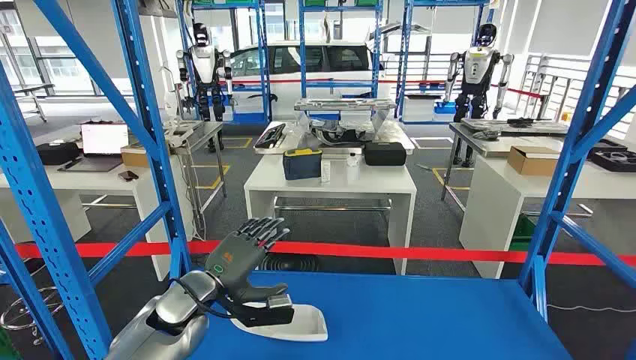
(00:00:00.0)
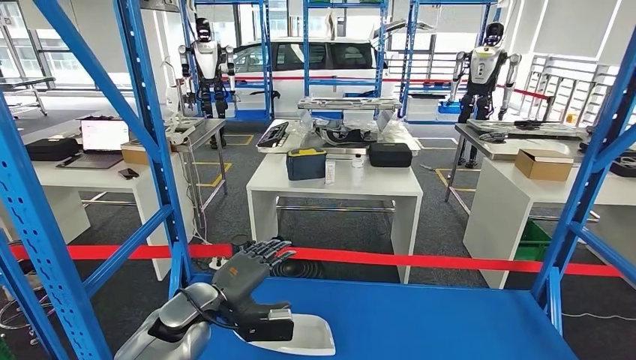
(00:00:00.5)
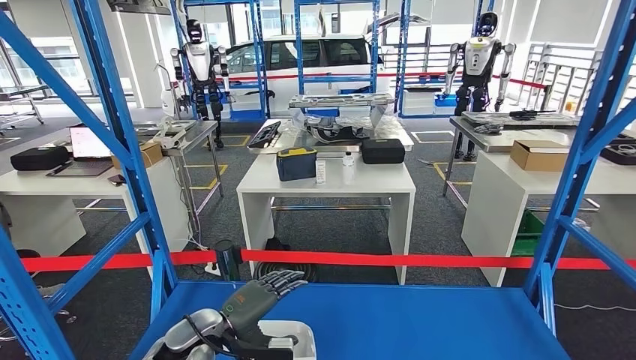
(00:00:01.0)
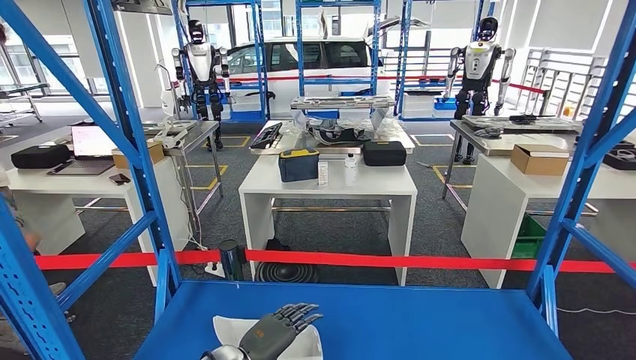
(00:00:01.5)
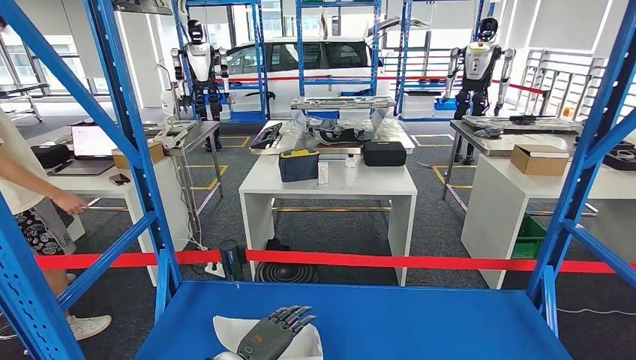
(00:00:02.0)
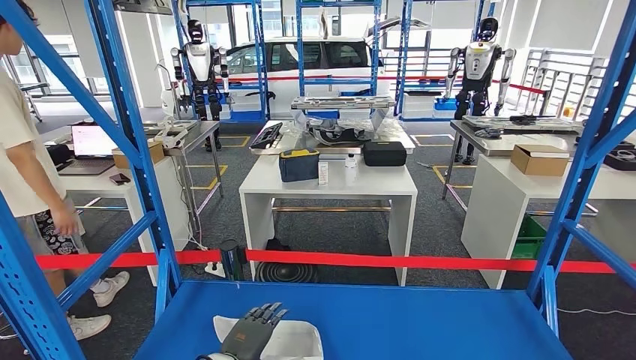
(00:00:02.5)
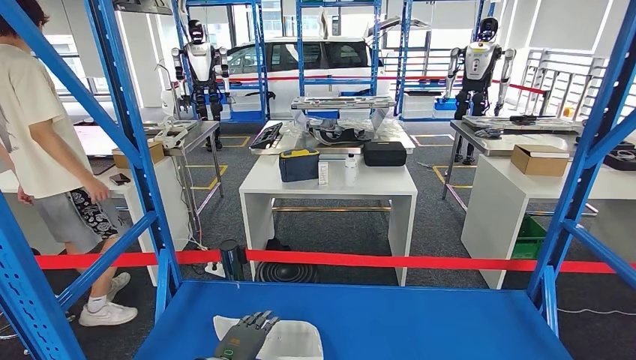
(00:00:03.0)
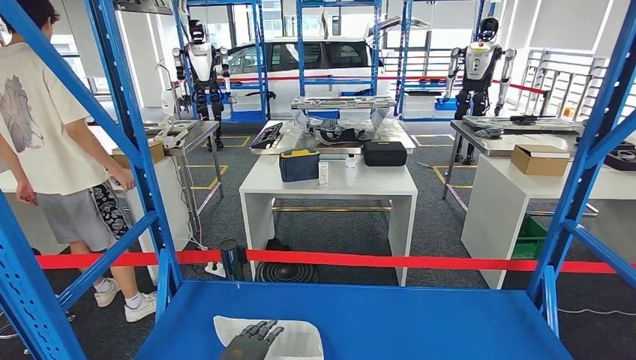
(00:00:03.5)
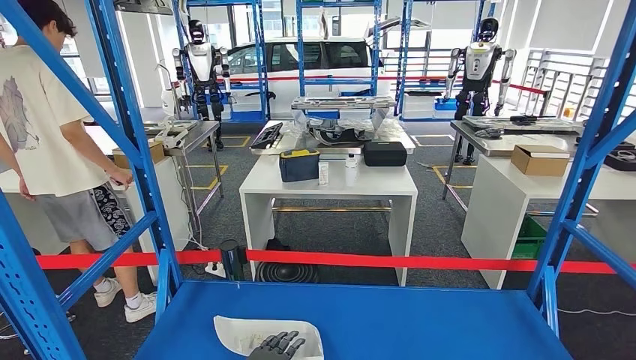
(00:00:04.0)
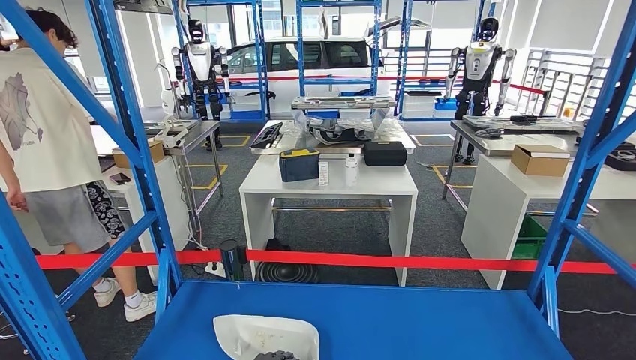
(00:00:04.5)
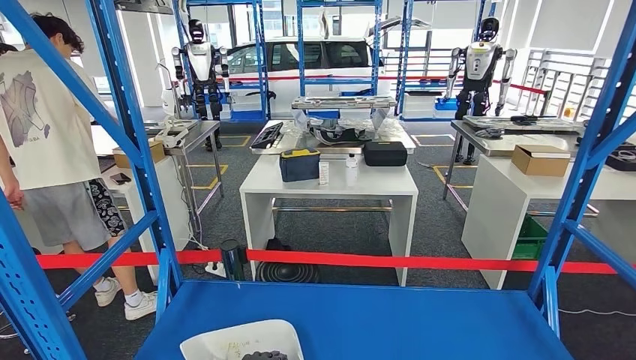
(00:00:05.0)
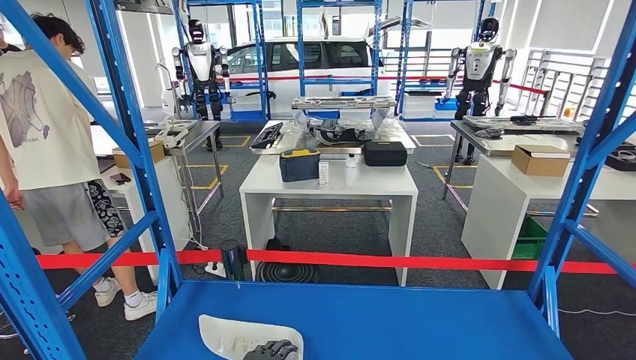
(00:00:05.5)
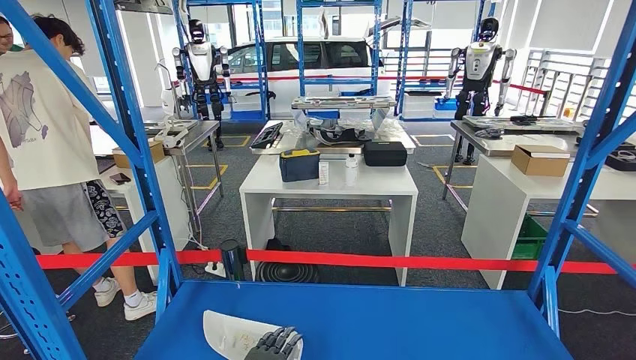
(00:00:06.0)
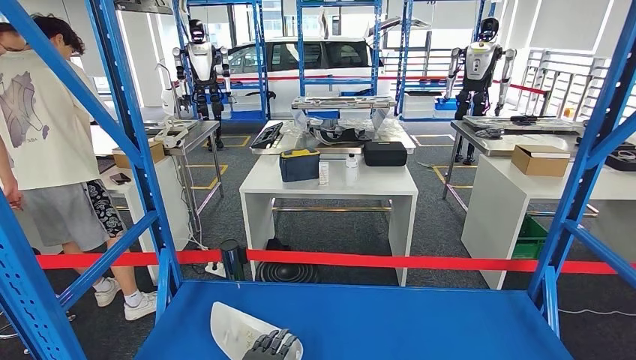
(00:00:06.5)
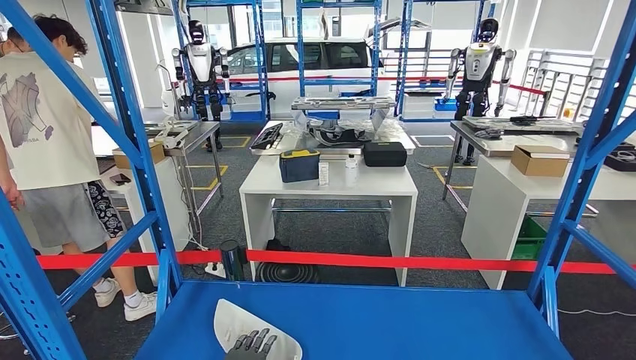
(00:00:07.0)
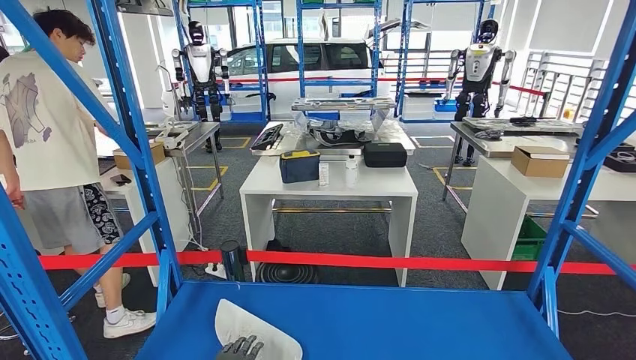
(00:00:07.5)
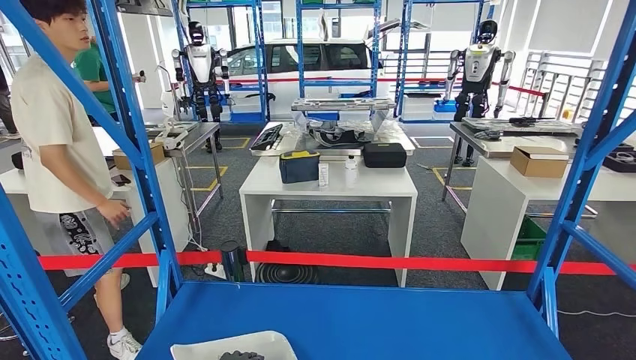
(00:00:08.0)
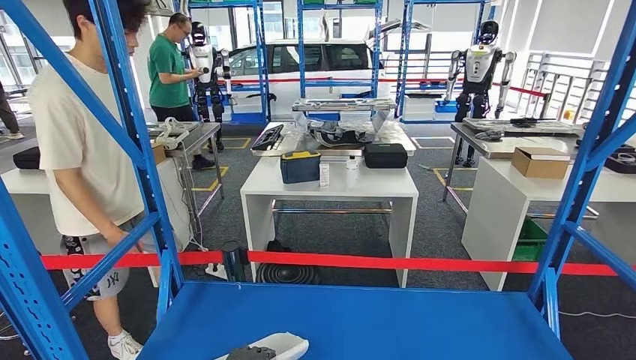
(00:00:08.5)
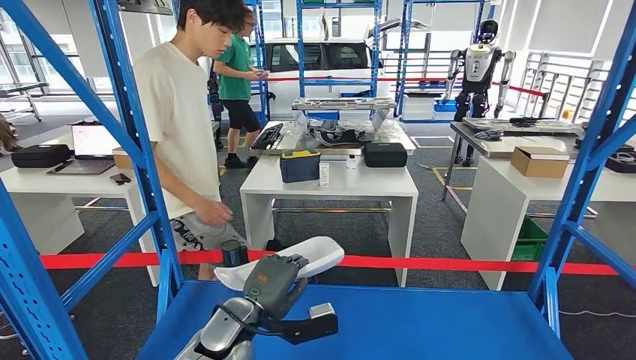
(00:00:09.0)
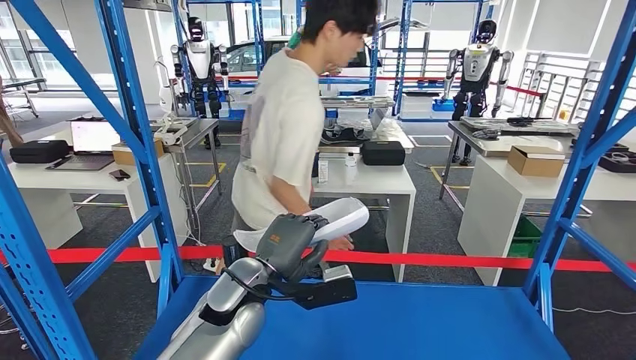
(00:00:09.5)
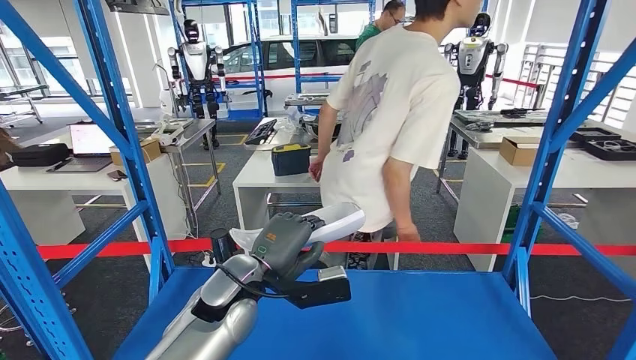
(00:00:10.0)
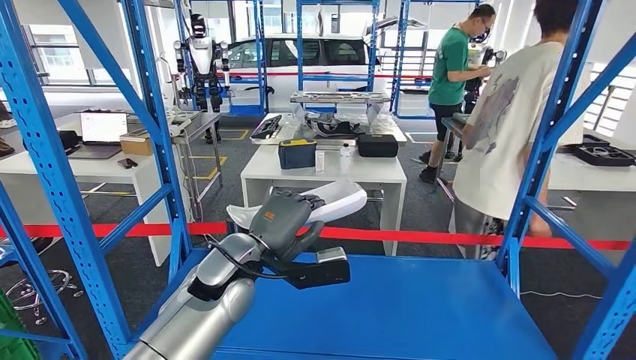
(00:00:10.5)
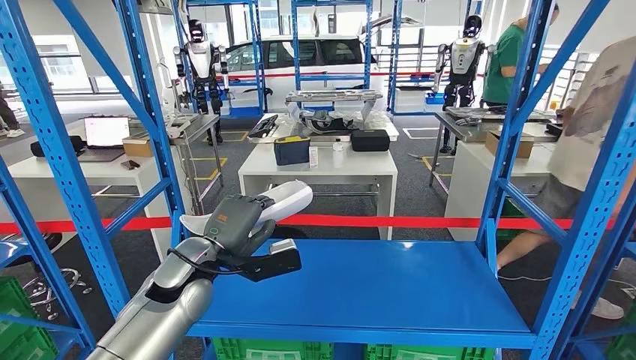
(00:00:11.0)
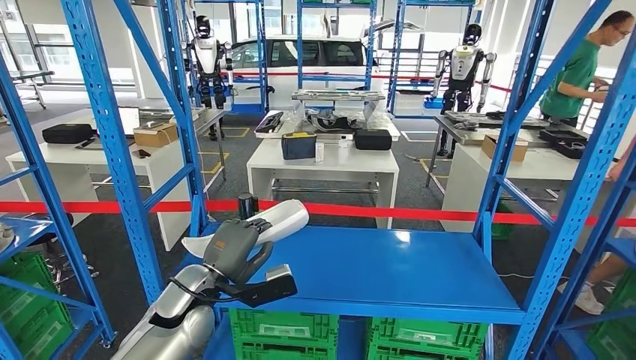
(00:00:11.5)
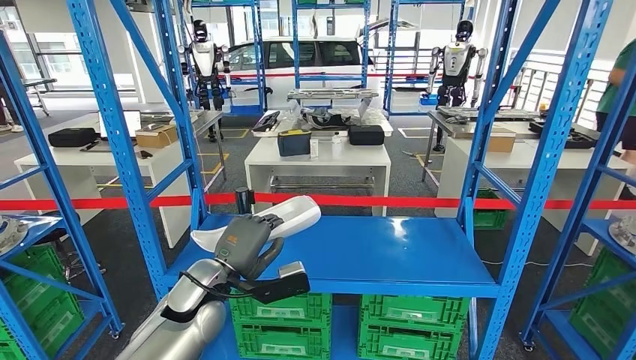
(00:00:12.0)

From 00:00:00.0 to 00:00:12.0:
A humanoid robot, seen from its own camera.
Step, from 00:00:00.0 to 00:00:11.0: Pick up the small parts from the shelf.
From 00:00:02.0 to 00:00:04.0: The left hand ends up about 5 cm from where it was.
From 00:00:04.0 to 00:00:06.0: The hands make only small movements.

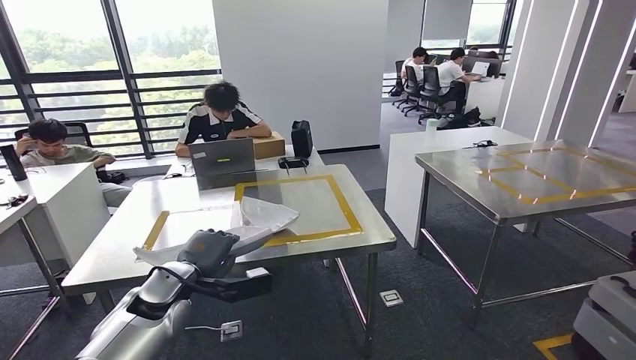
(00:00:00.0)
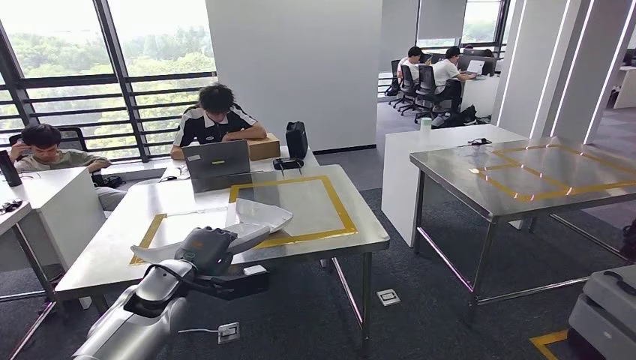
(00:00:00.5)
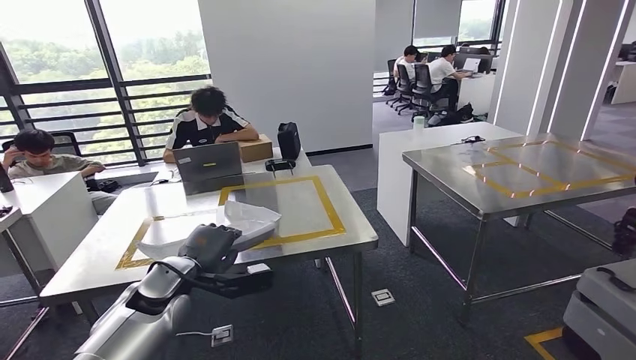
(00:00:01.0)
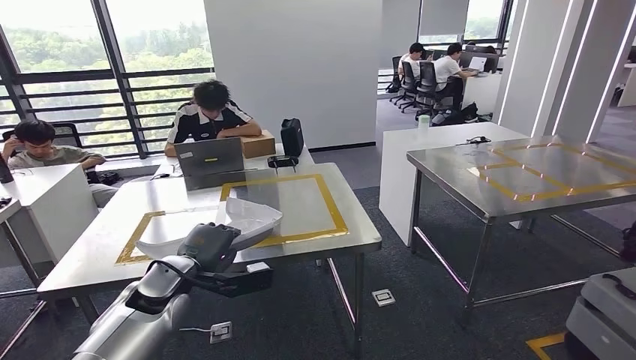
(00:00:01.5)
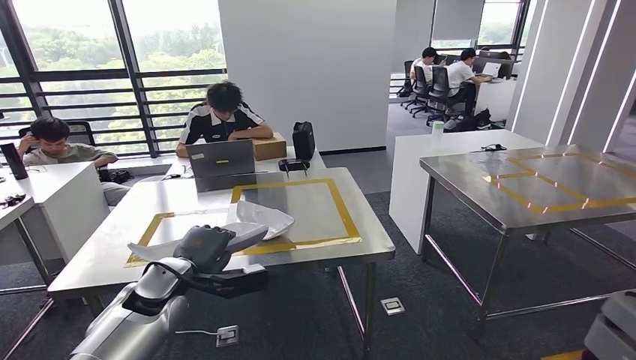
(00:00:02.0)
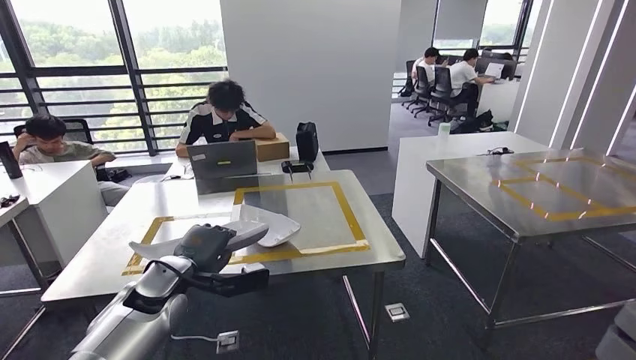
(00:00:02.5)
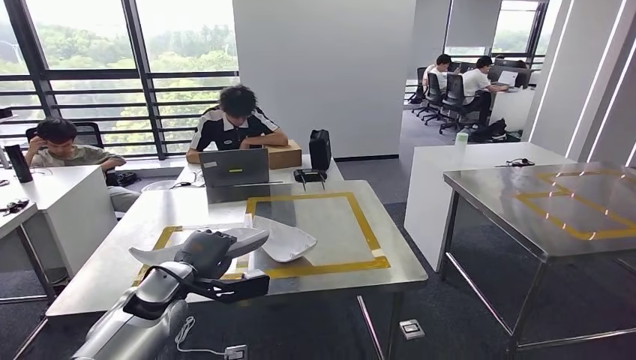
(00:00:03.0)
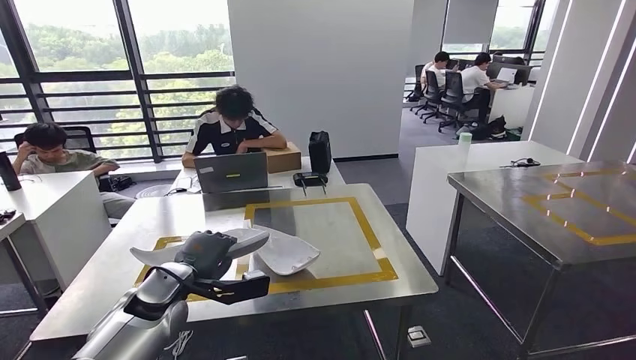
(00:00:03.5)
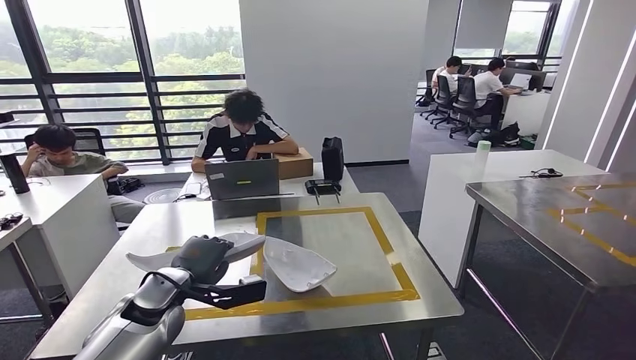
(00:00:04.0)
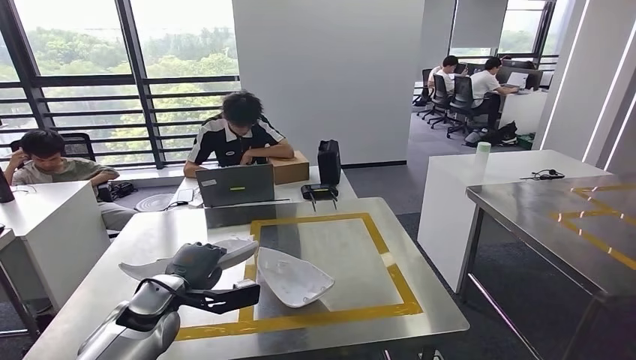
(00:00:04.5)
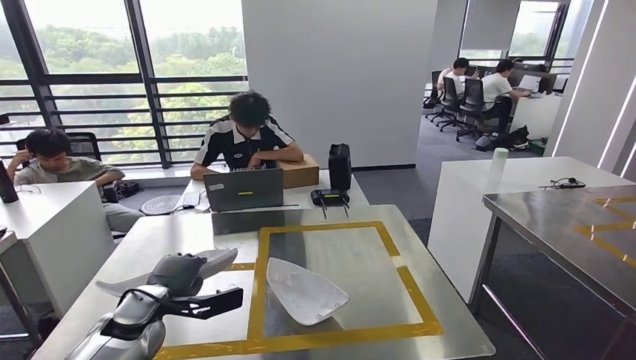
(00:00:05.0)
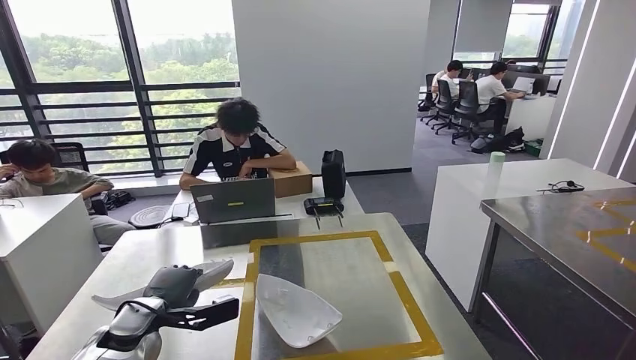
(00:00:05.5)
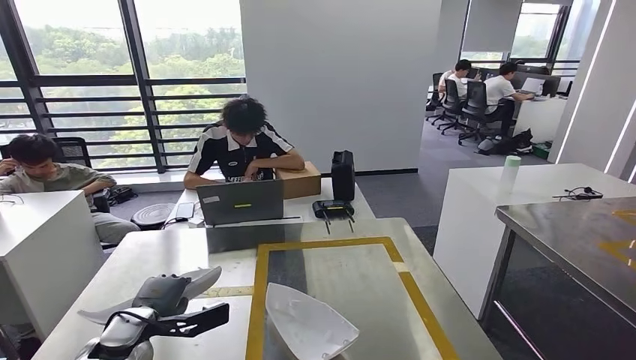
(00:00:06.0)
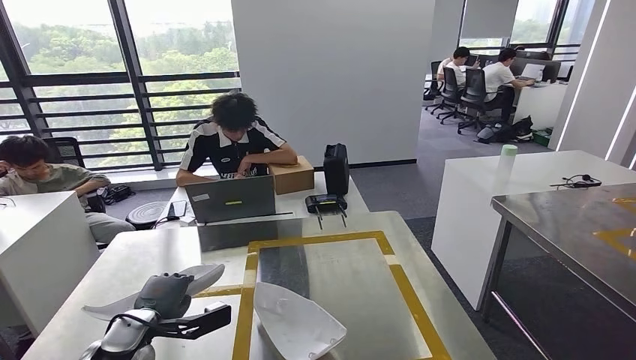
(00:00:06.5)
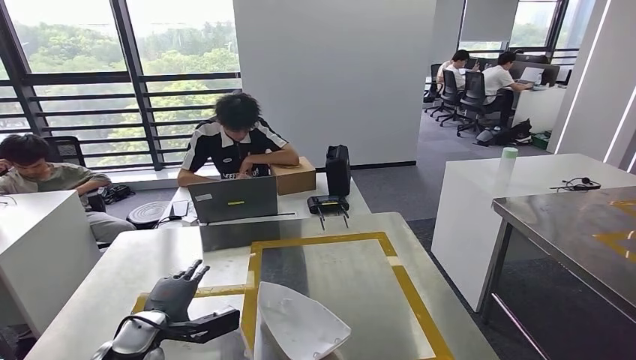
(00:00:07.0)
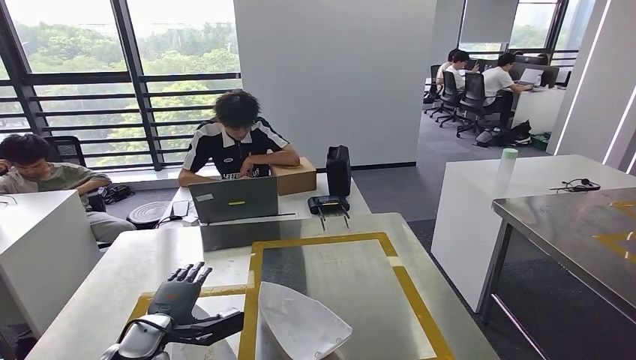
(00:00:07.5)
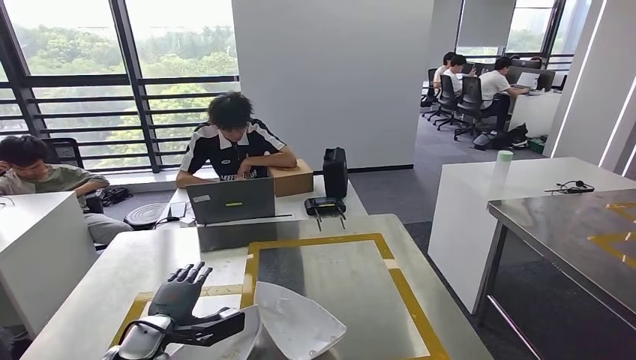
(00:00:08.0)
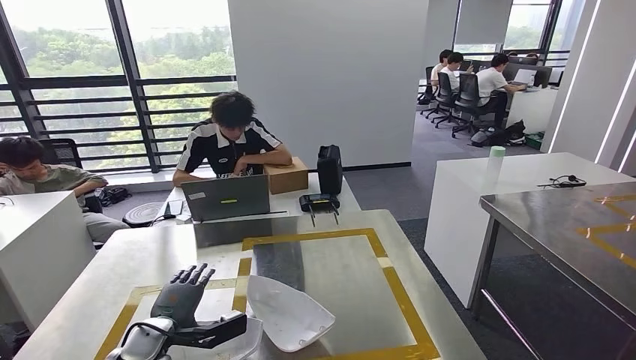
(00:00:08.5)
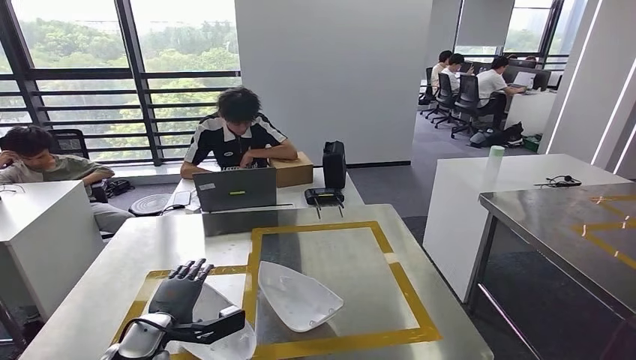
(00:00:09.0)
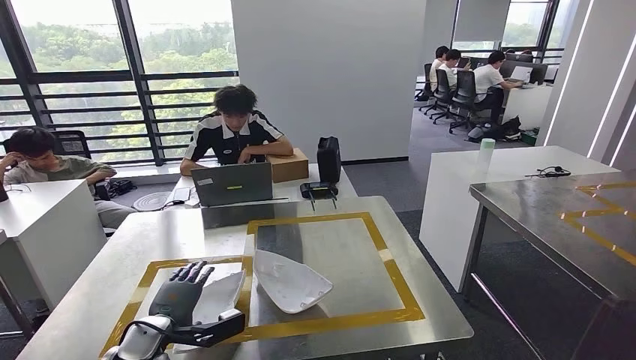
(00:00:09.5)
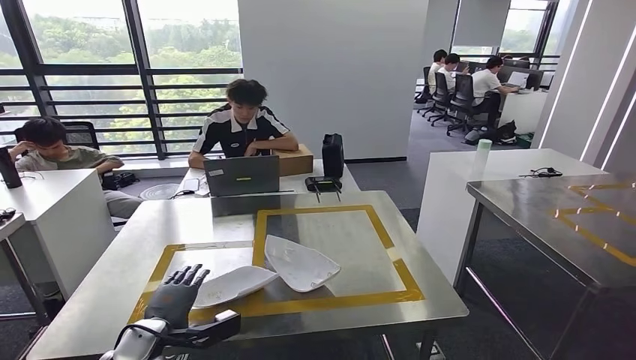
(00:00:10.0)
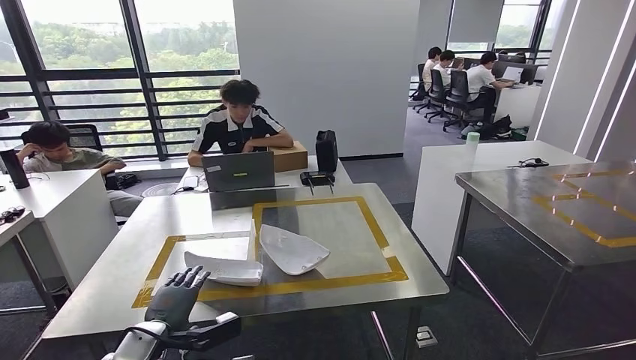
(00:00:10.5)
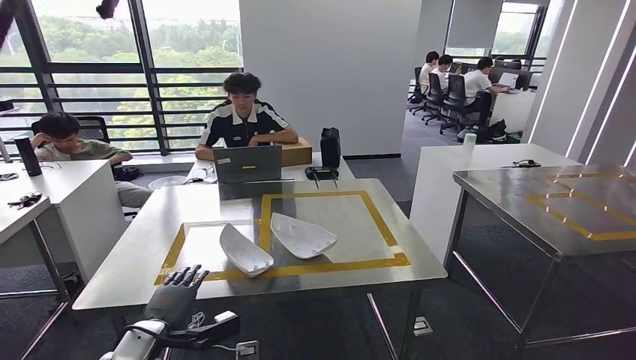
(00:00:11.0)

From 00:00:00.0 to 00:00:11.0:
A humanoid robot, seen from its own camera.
Step, from 00:00:00.0 to 00:00:04.5: Move the small parts to the workbench.
